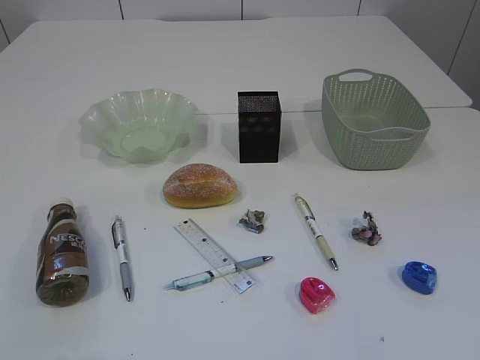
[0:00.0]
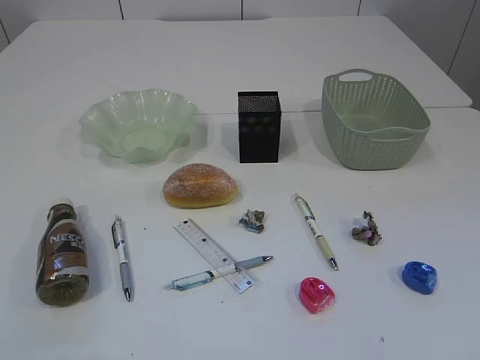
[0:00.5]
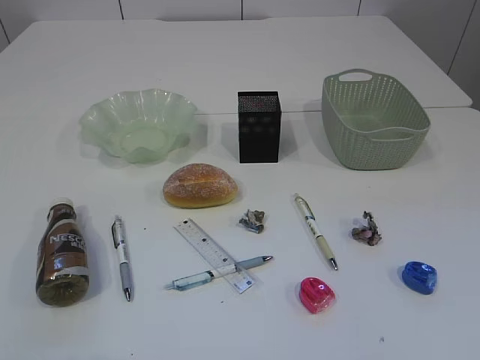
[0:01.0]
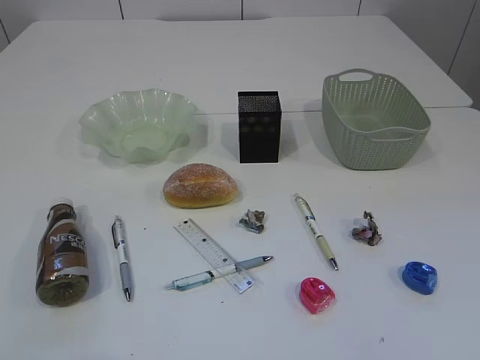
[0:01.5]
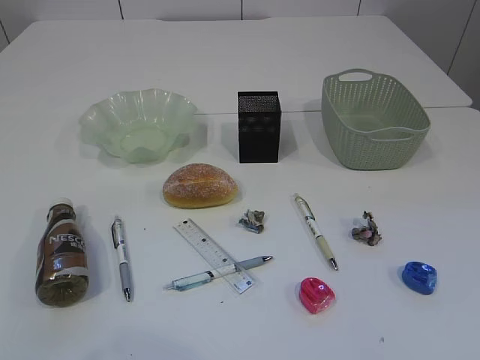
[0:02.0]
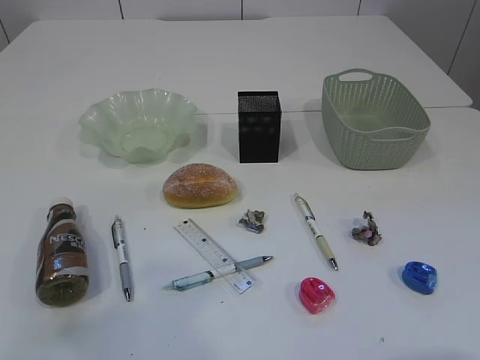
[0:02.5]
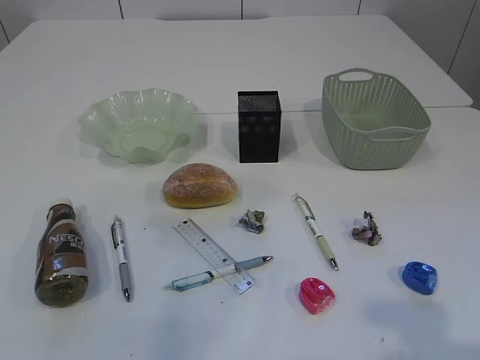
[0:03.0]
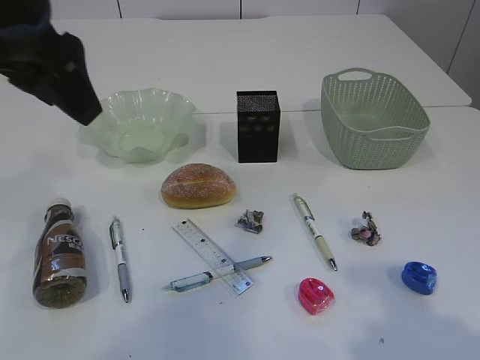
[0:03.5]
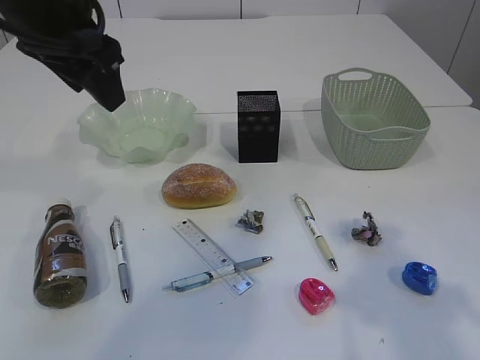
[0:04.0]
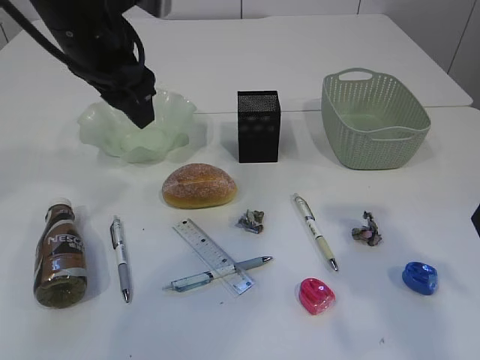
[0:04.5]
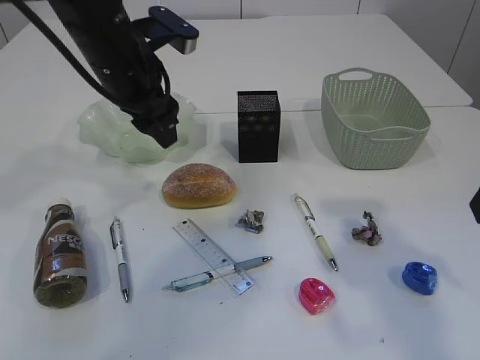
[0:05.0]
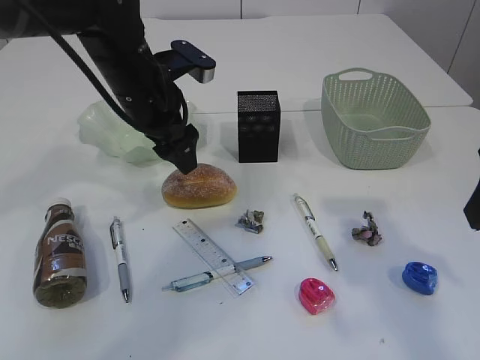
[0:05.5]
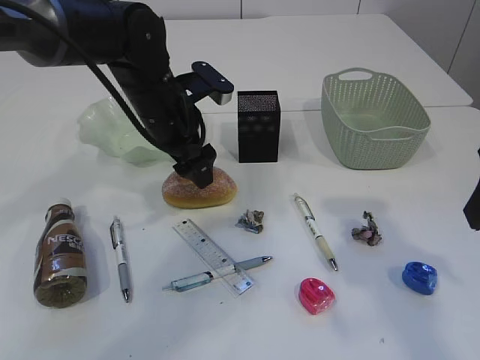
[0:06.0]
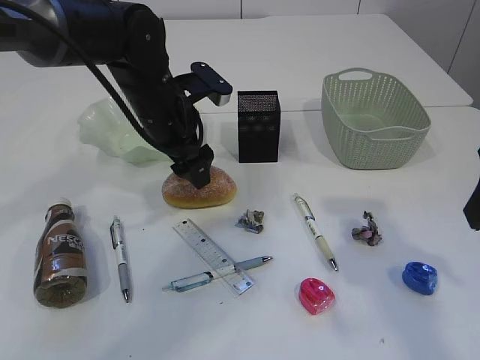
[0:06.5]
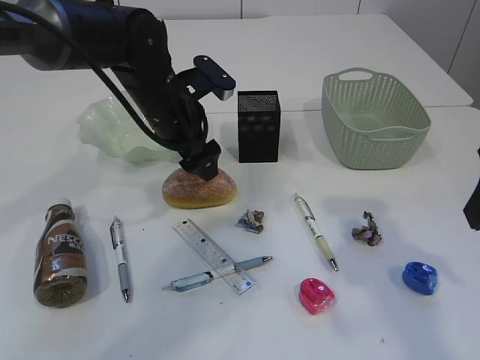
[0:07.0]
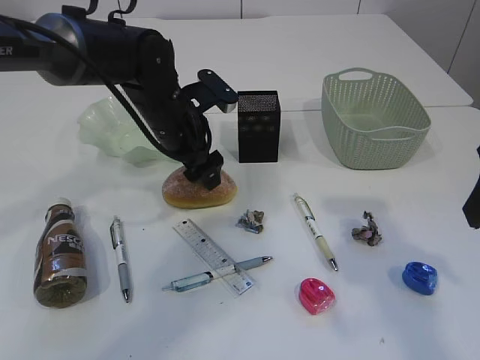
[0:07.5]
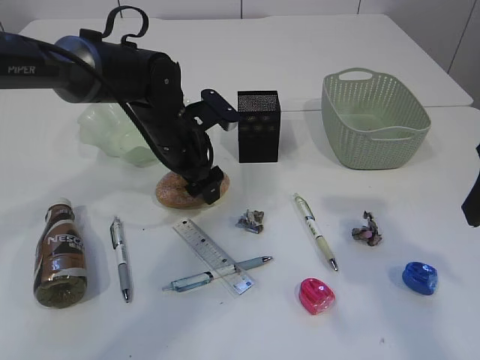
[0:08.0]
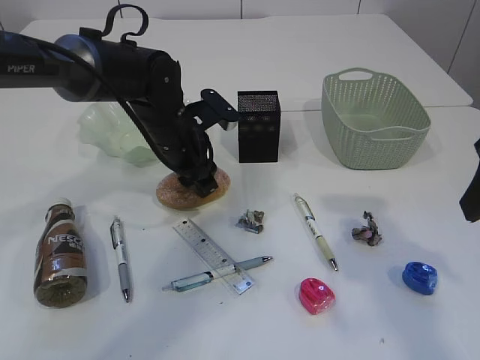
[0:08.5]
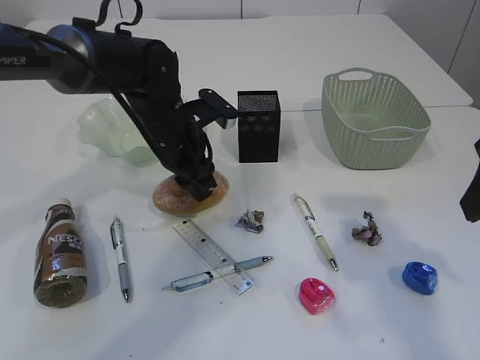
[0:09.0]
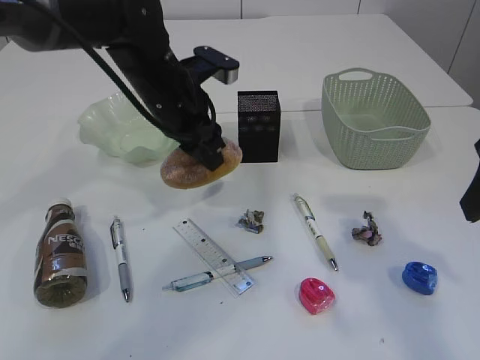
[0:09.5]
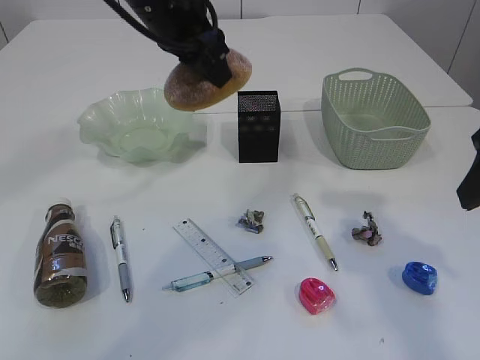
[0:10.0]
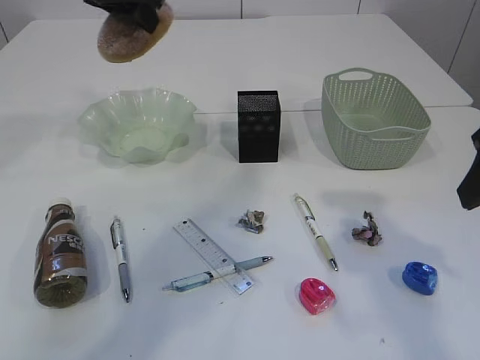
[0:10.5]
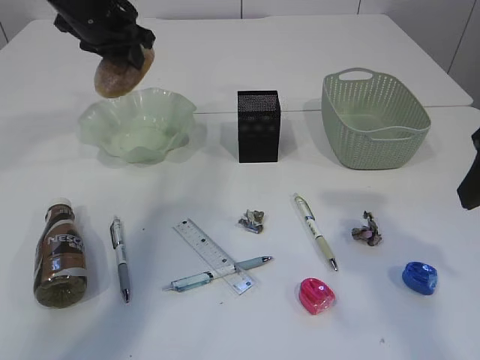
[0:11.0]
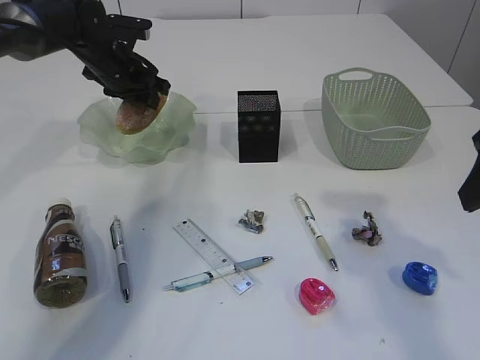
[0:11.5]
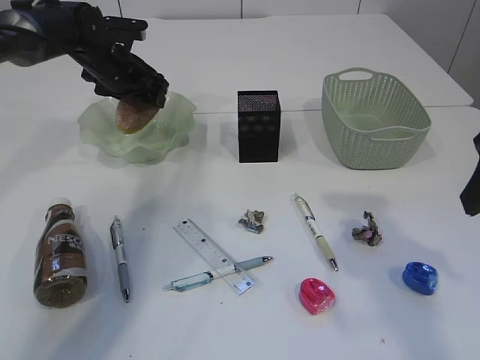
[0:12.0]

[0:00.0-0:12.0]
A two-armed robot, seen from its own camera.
0:02.0 to 0:04.0: The left gripper goes about 35 cm forward and to the right. Meanwhile the right gripper travels forward by about 20 cm.
0:04.0 to 0:06.0: The left gripper is displaced downward, forward and to the right by about 20 cm.
0:06.0 to 0:08.0: The left gripper goes about 5 cm downward.
0:08.0 to 0:10.0: The left gripper moves upward, some 20 cm, and closes its fingers.
0:10.0 to 0:12.0: The left gripper goes roughly 20 cm downward, forward and to the left, and opens.

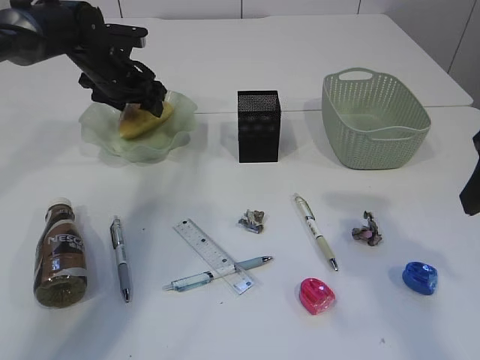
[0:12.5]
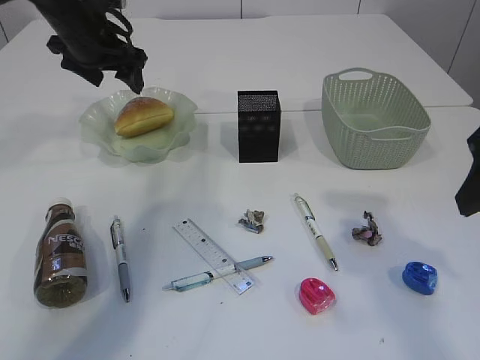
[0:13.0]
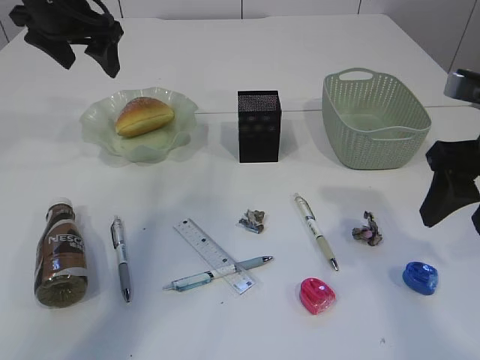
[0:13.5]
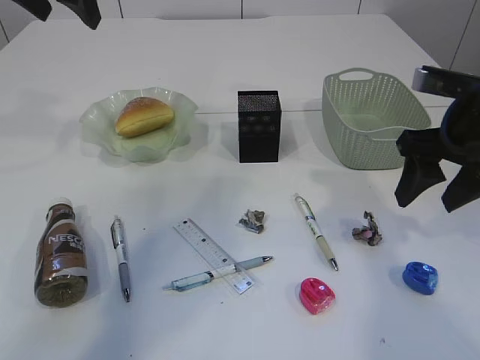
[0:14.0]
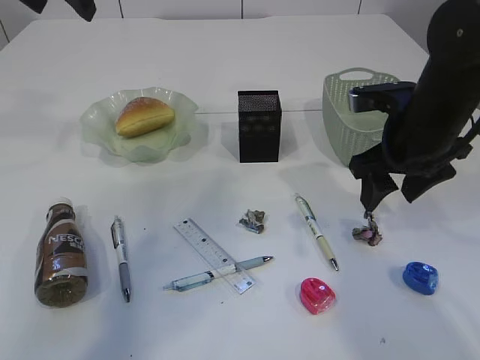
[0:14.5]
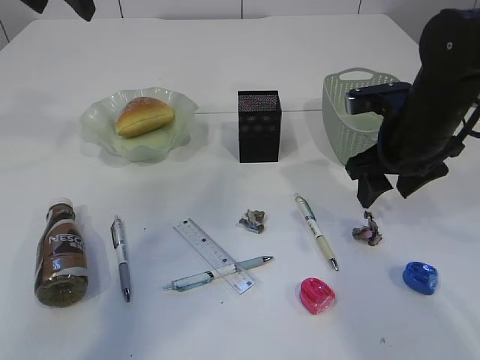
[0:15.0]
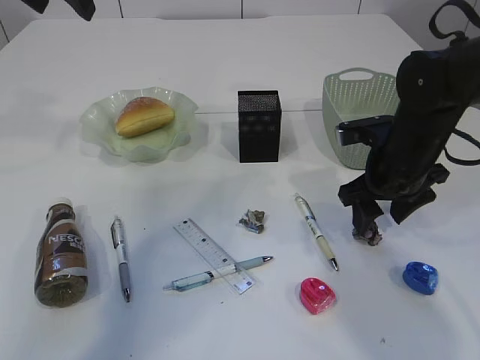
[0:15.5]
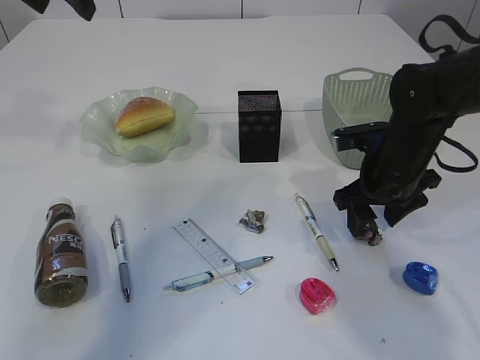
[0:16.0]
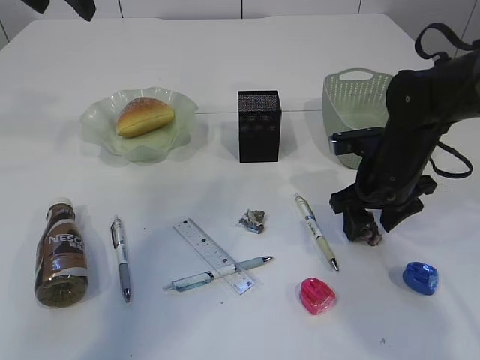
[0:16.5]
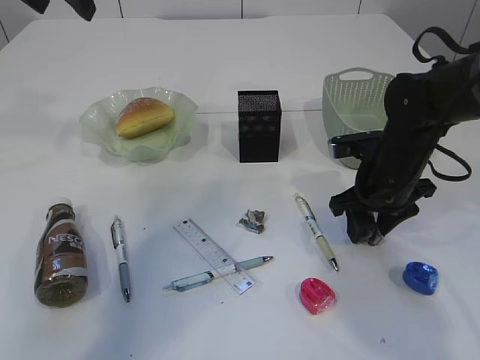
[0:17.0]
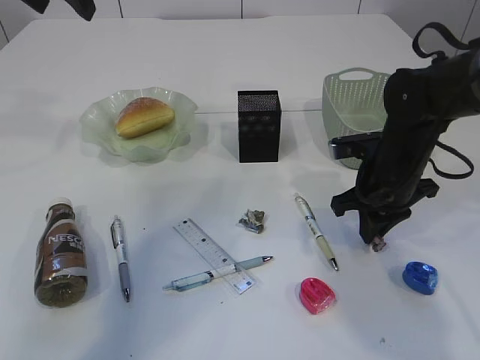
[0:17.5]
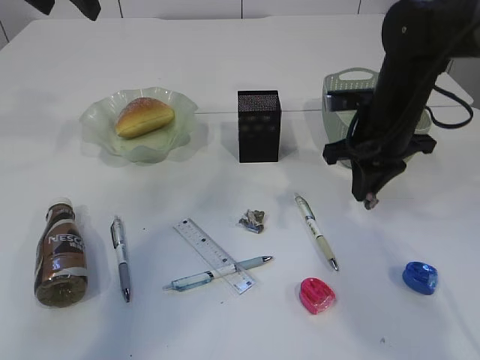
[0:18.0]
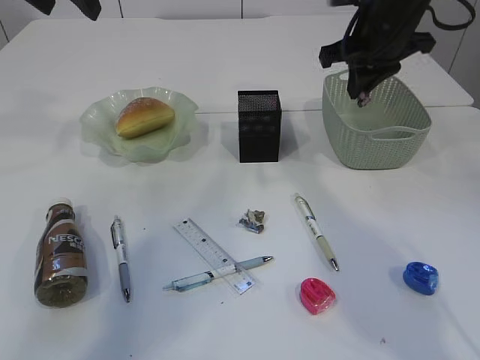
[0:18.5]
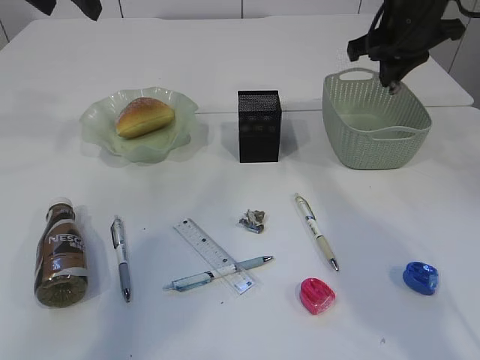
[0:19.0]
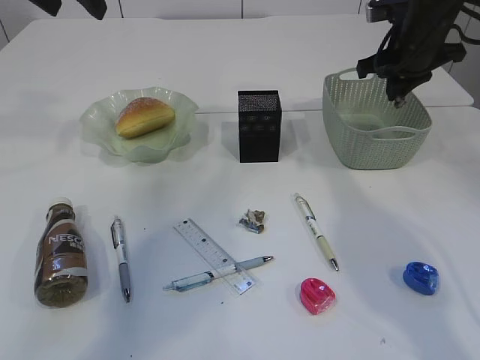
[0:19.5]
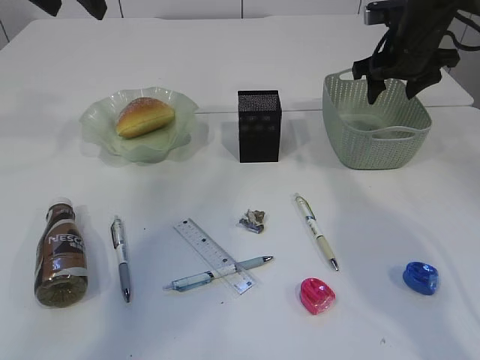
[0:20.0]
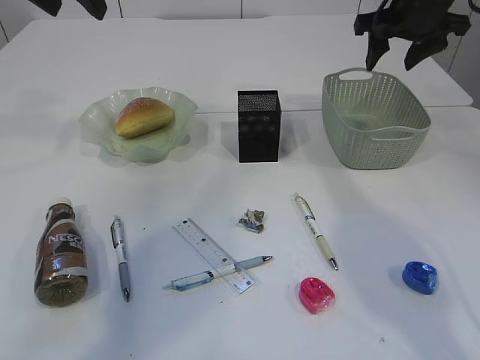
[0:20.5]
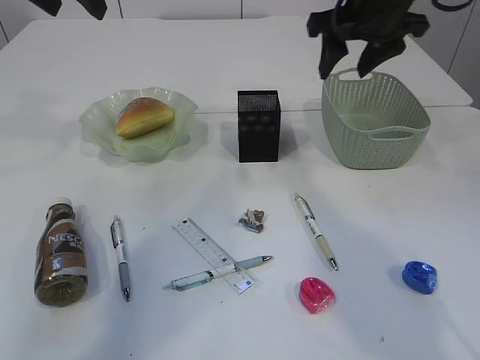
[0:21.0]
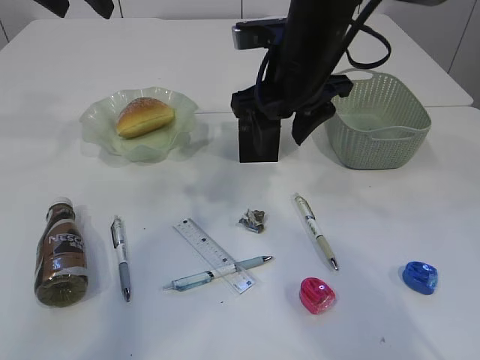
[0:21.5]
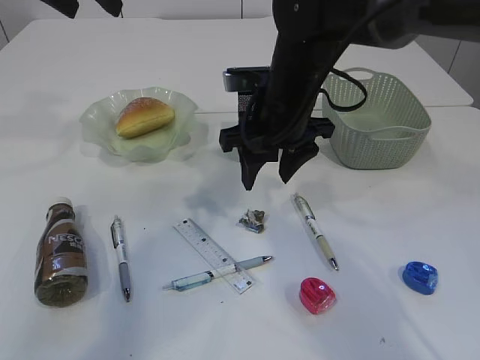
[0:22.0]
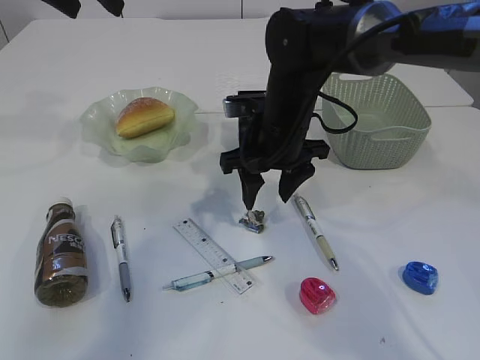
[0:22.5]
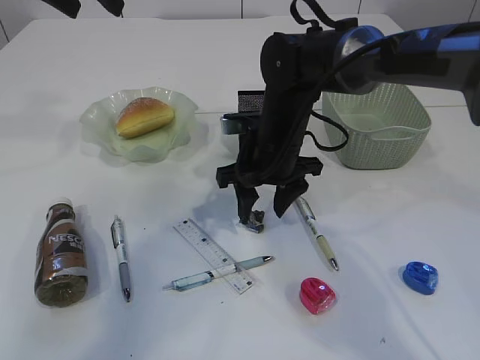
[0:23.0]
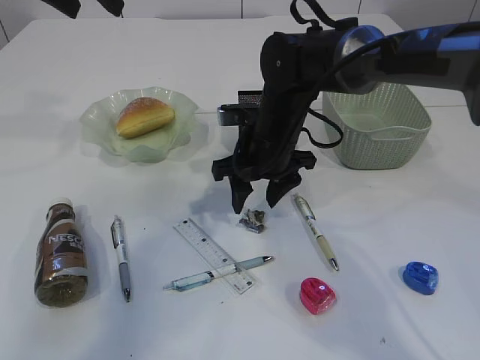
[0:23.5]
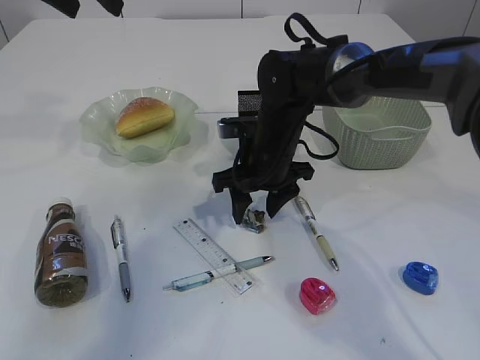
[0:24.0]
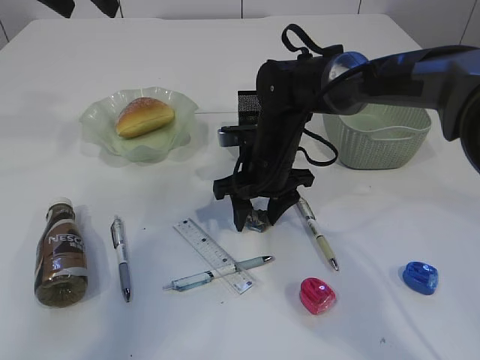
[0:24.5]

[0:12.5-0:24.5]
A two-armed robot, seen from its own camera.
Step, 0:13.0 to 0:17.5: Pick up the waste paper.
Step, 0:18.0 to 0:20.0: Place the waste paper in the basket.
0:12.5 to 0:14.5: The left gripper moves upward and backward, approximately 25 cm; the right gripper shifts roughly 15 cm forward and downward.
0:14.5 to 0:16.5: The right gripper is displaced downward by about 10 cm.
0:16.5 to 0:18.5: The right gripper shifts approximately 20 cm upward and forward, and closes.
0:18.5 to 0:20.5: The right gripper is displaced to the right by roughly 5 cm, and opens up.
0:20.5 to 0:22.5: The right gripper heads to the left, downward and backward, covering some 25 cm.
0:22.5 to 0:24.5: The right gripper shifts some 5 cm downward.

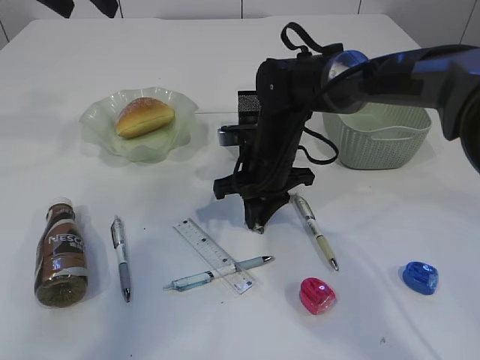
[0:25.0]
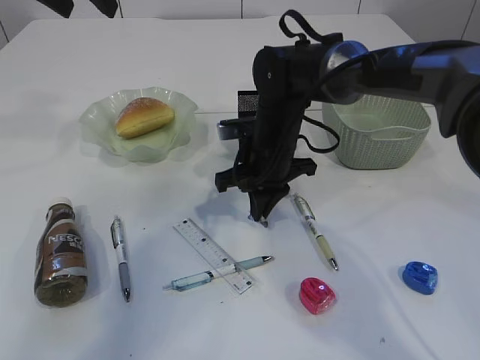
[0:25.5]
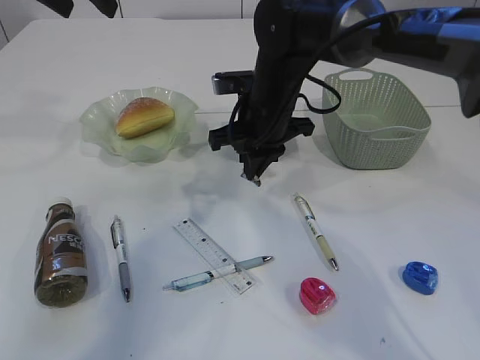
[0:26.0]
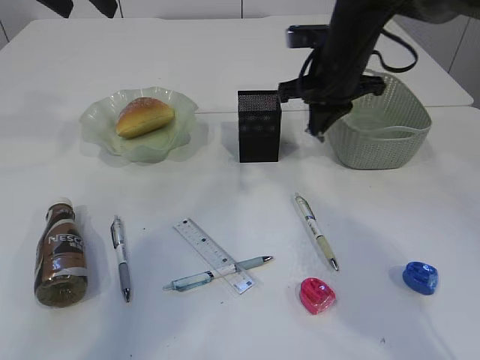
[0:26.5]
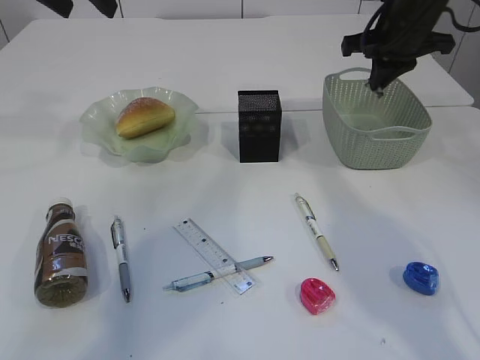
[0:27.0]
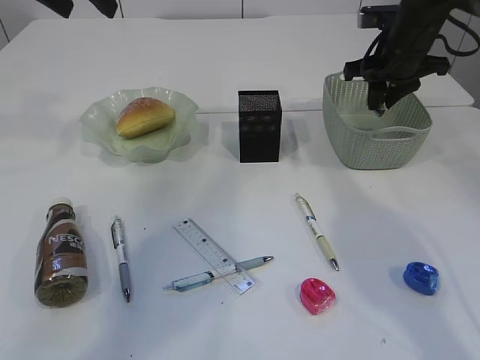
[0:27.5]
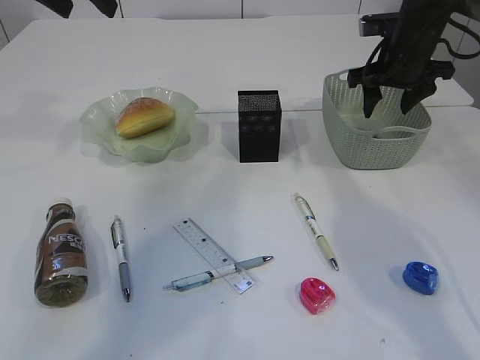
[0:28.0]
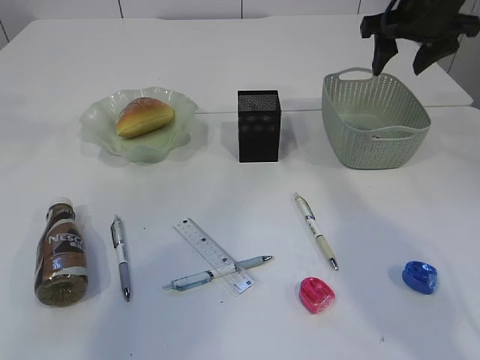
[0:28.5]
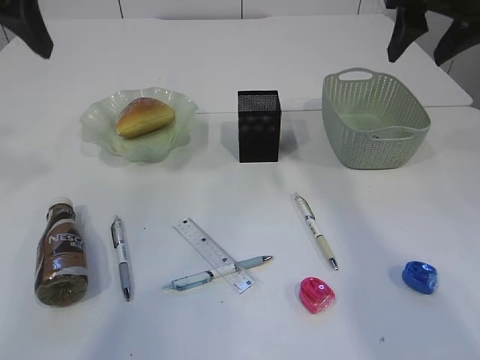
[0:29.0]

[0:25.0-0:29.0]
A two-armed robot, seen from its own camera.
Step, 0:26.0 to 0:27.5: Place the waste paper in the basket.
0:25.0 to 0:27.0: The right gripper moves to the right and upward, approximately 25 cm.
0:27.0 to 0:29.0: The right gripper shifts about 10 cm backward and upward, and opens its fingers, while the left gripper goes some 10 cm backward.
